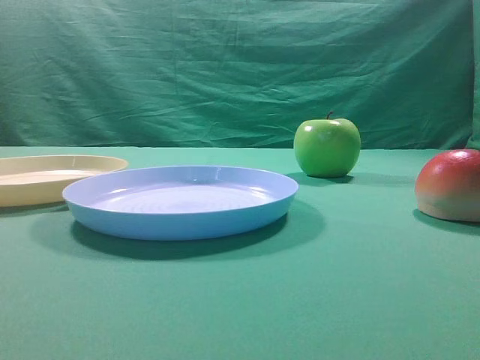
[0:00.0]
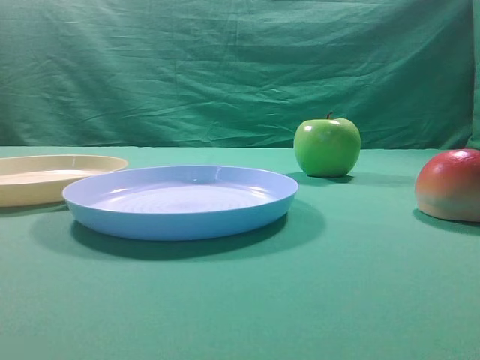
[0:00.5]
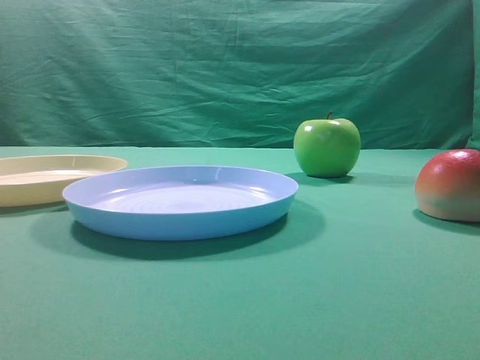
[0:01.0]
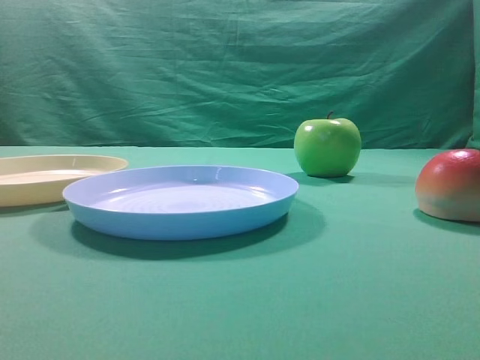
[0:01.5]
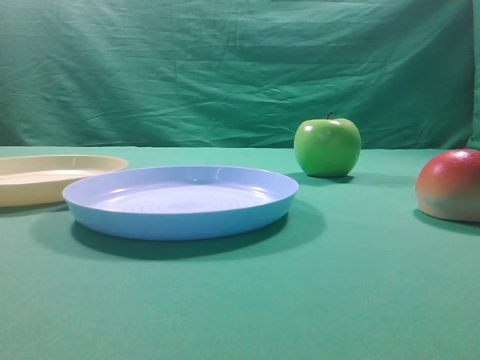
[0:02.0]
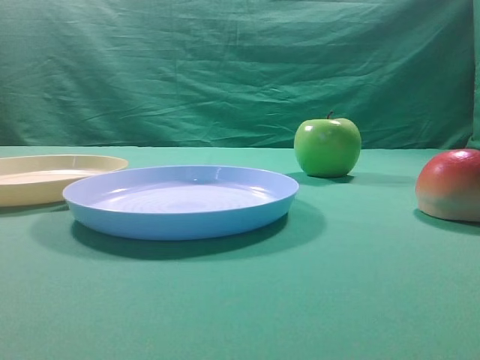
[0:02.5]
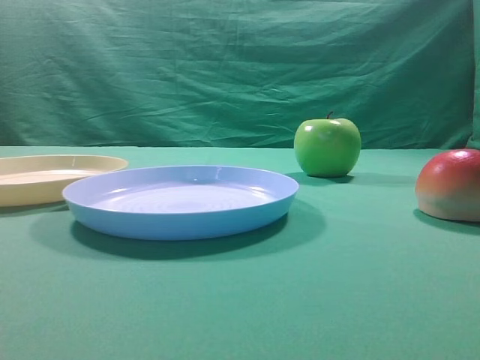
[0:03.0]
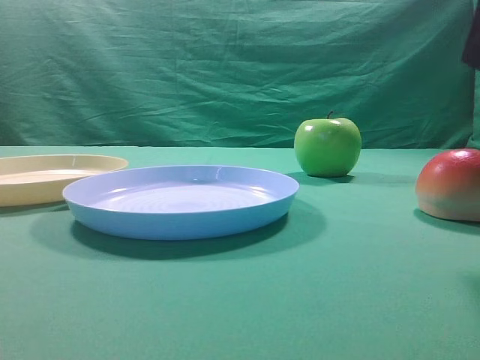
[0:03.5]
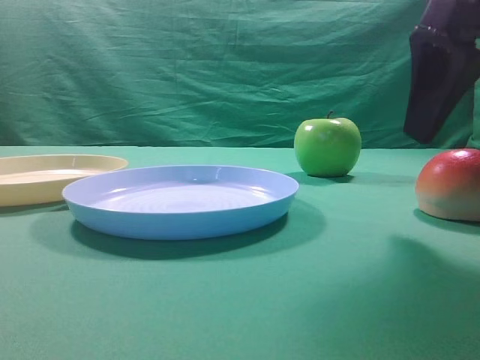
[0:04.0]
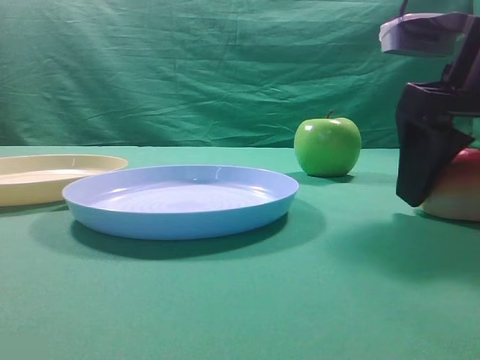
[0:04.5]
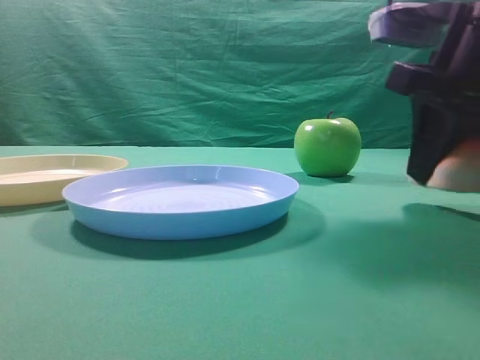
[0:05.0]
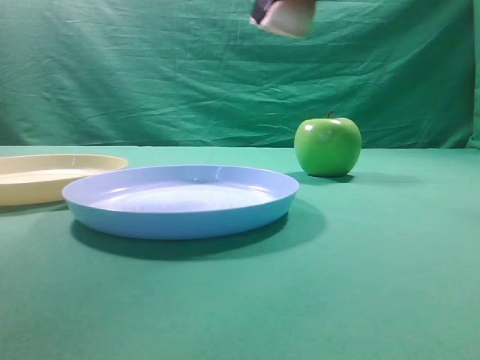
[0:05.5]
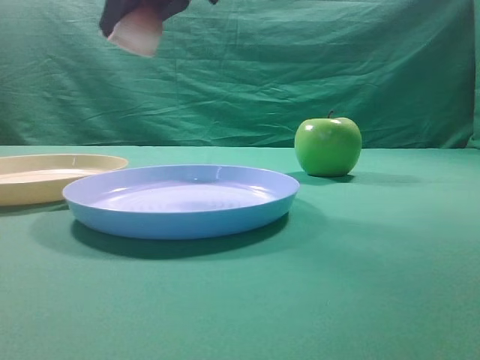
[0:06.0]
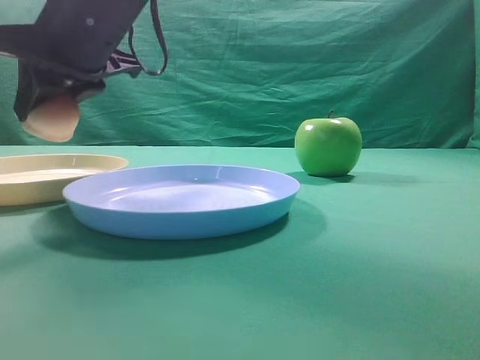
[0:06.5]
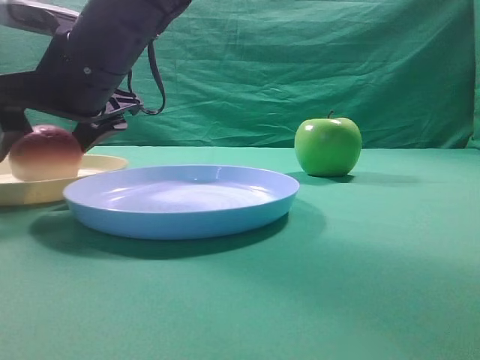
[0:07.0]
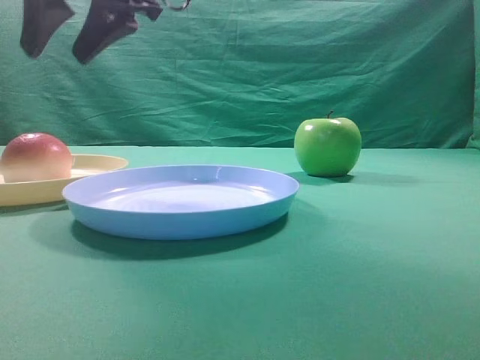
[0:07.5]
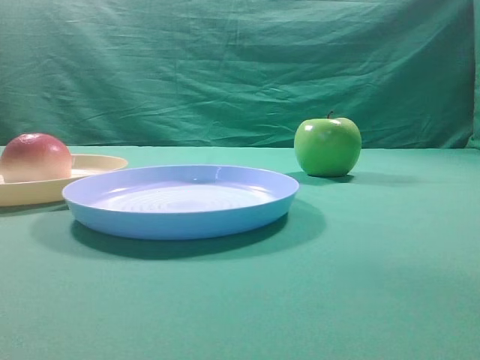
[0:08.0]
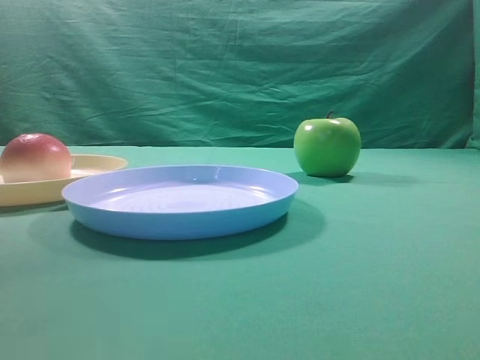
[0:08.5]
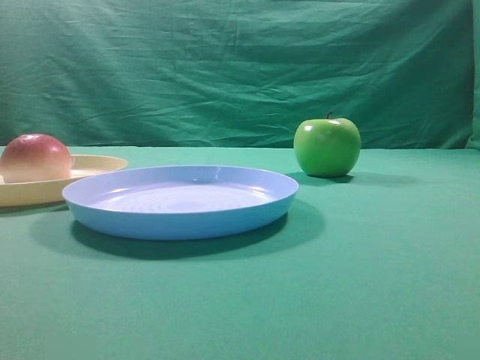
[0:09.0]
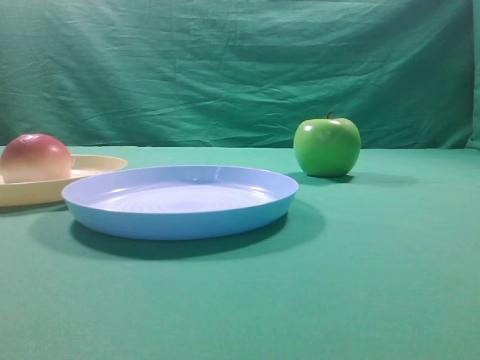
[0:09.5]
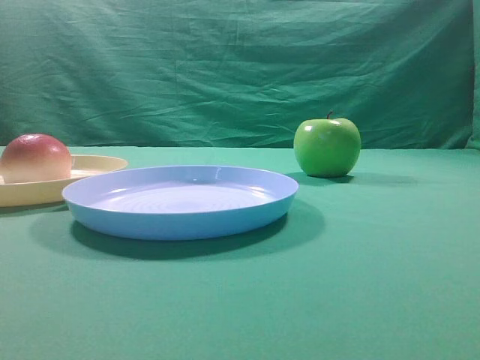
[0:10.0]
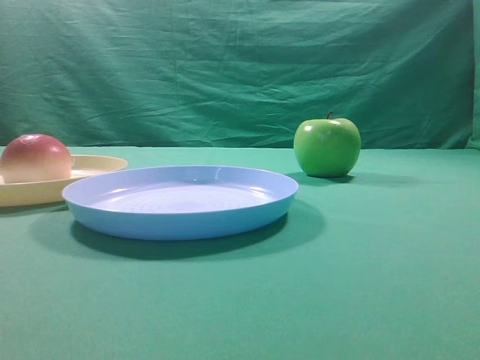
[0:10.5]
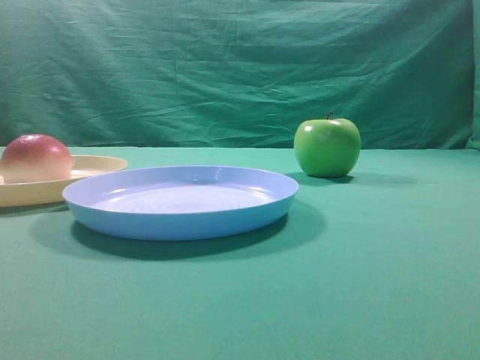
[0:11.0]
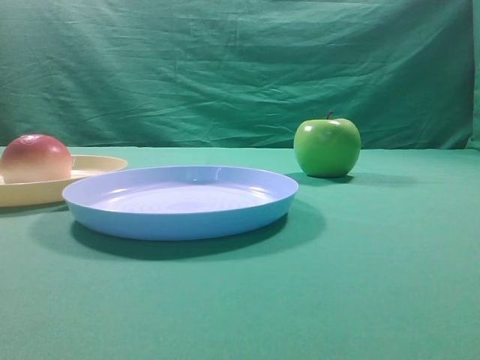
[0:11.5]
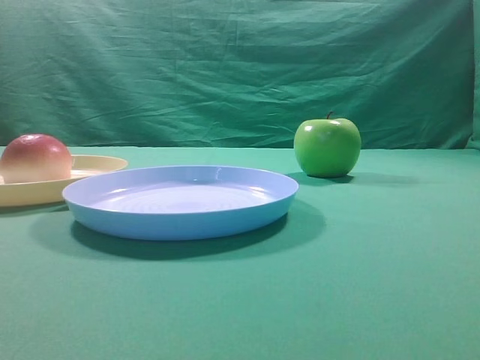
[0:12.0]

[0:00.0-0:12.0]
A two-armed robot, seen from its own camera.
Step, 0:05.5 to 0:07.0: Place the picked object on the yellow plate.

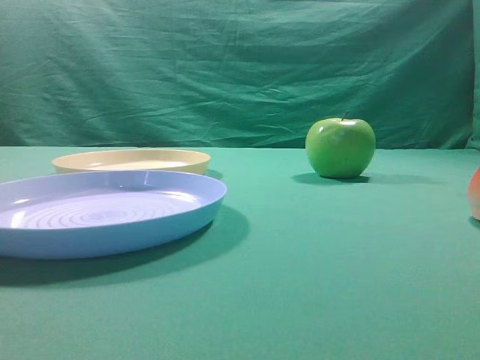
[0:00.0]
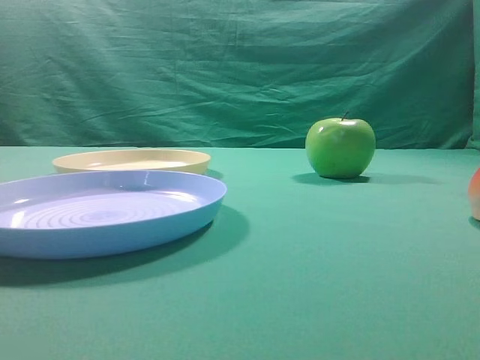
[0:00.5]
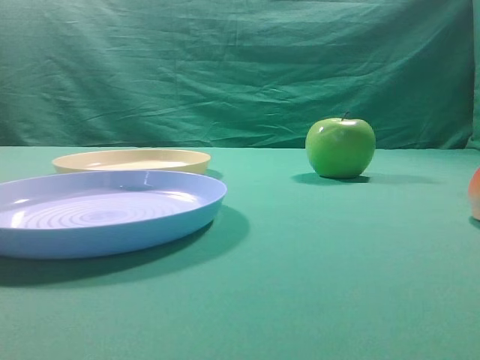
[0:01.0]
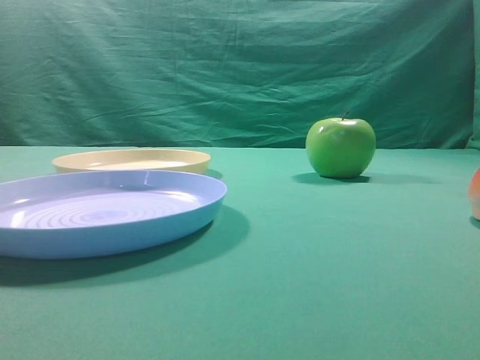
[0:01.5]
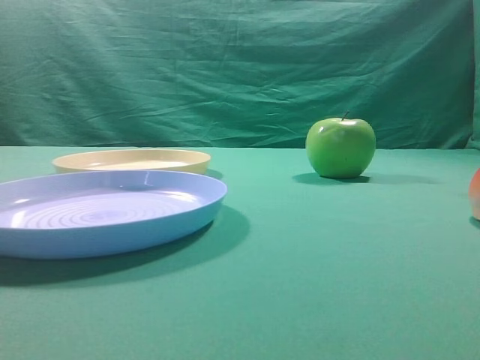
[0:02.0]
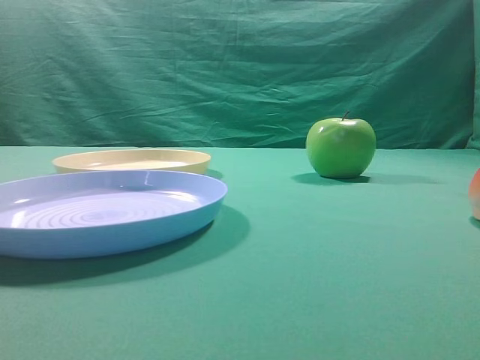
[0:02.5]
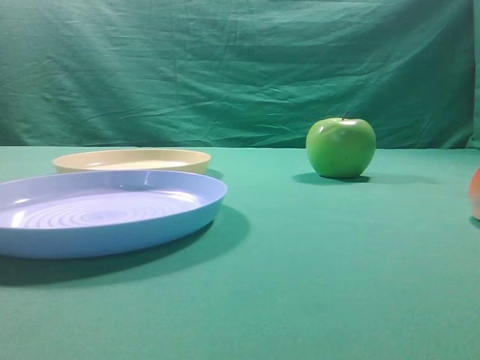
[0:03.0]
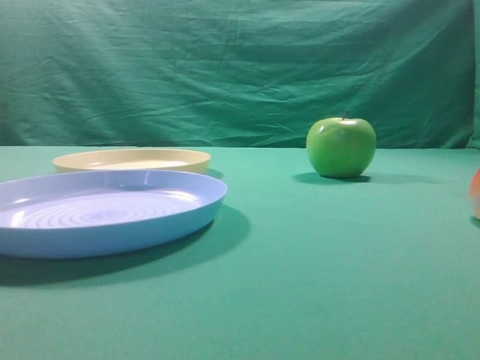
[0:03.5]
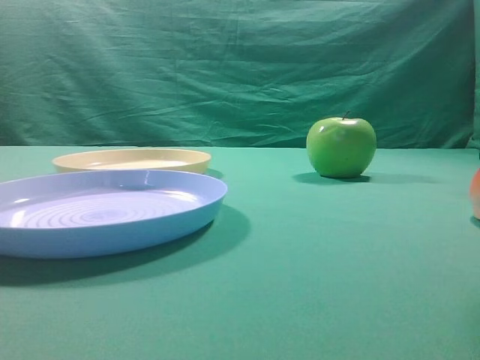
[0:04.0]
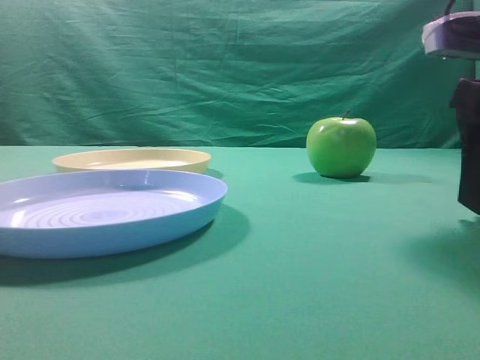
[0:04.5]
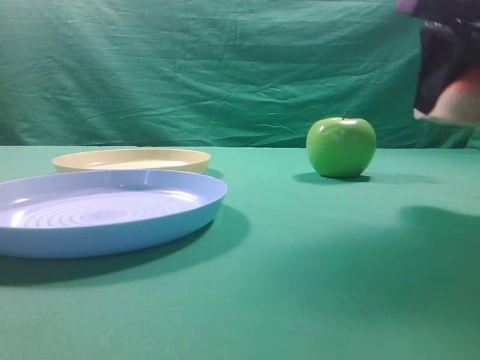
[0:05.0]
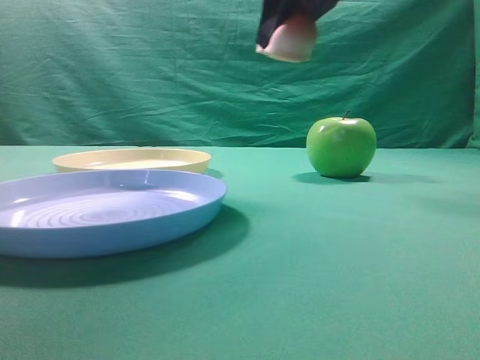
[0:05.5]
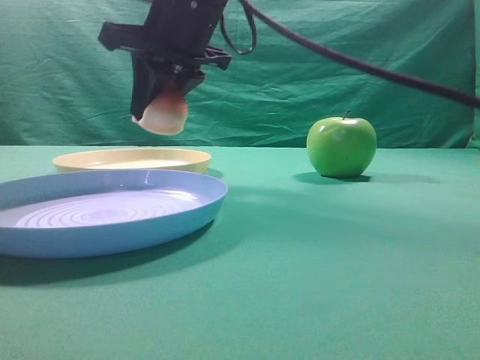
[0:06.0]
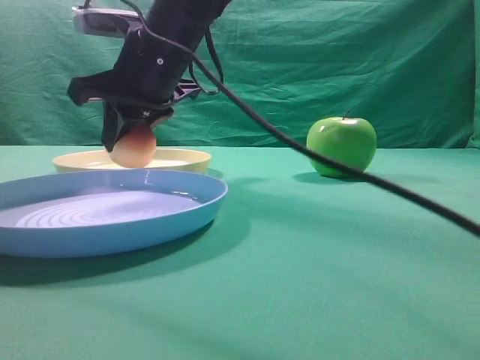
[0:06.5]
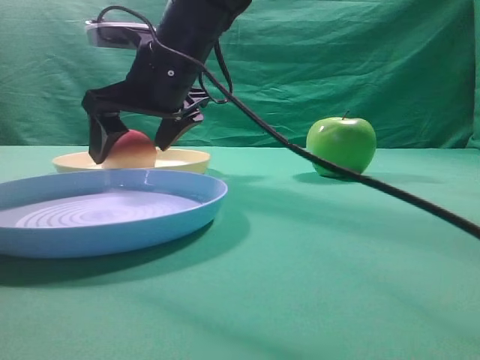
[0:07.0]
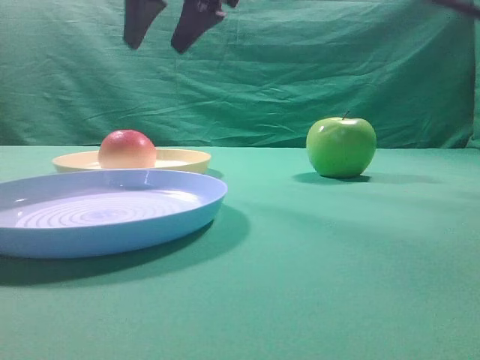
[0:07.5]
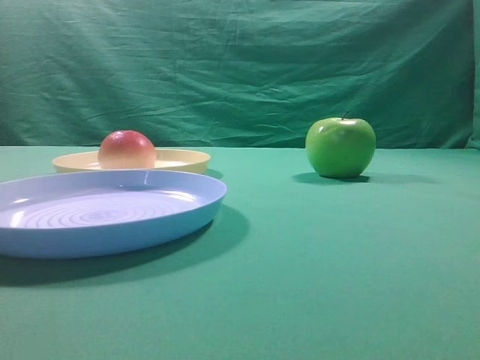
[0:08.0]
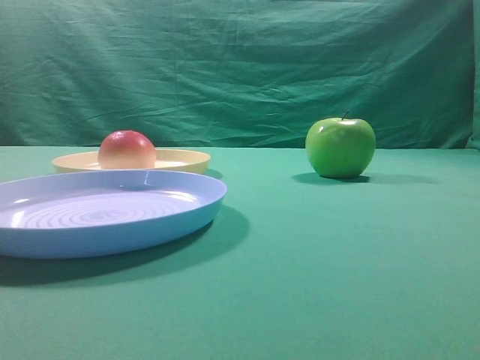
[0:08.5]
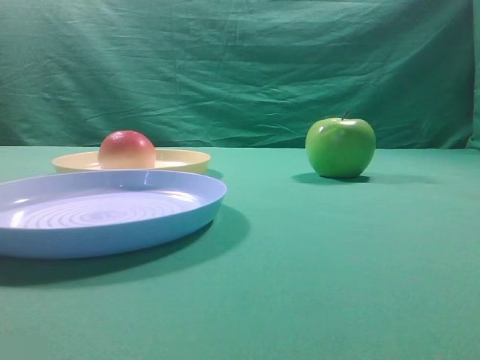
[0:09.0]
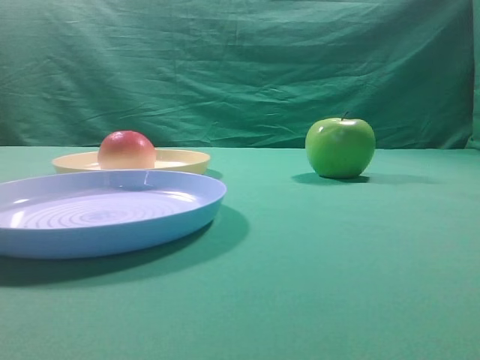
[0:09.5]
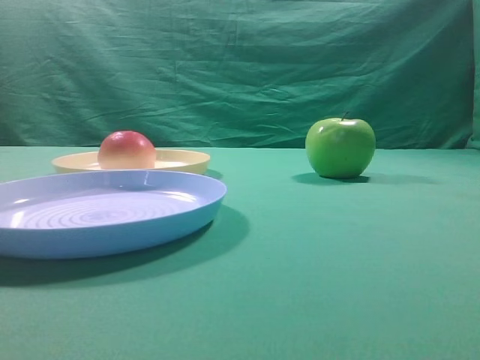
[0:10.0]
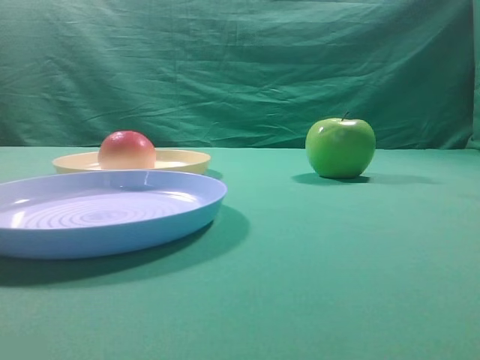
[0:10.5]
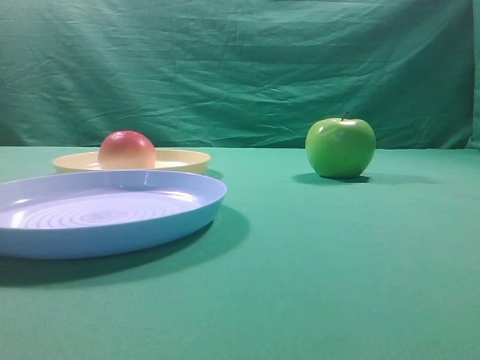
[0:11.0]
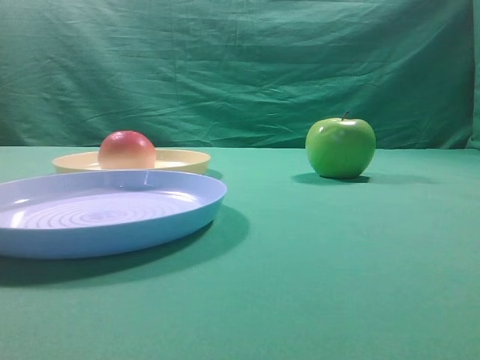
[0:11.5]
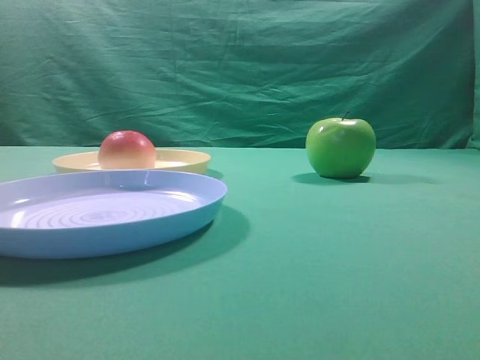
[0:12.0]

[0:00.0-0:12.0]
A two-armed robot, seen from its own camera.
Step, 0:05.0 to 0:07.0: Place the picked object on the yellow plate.
